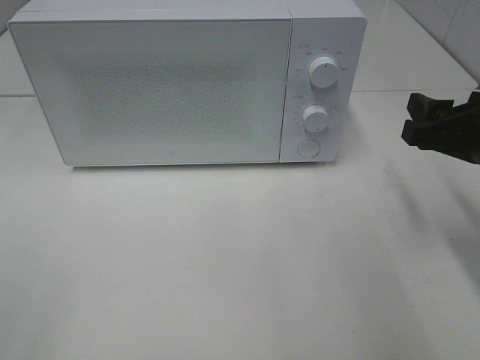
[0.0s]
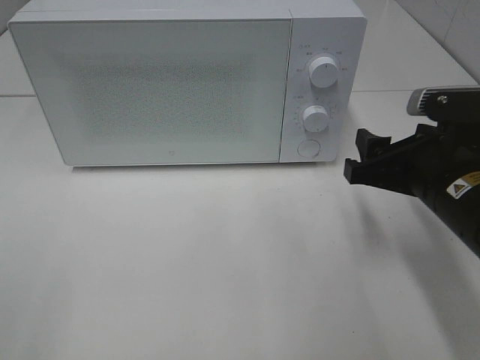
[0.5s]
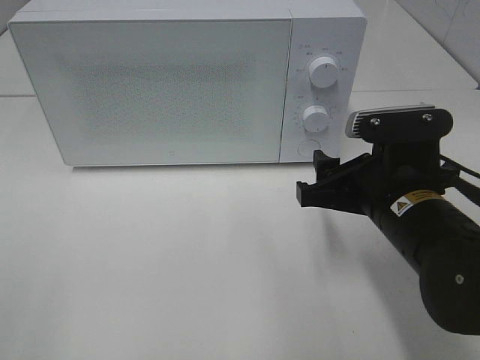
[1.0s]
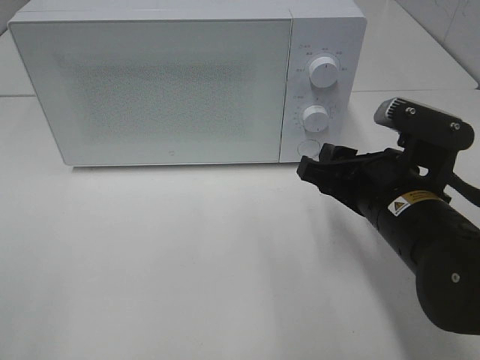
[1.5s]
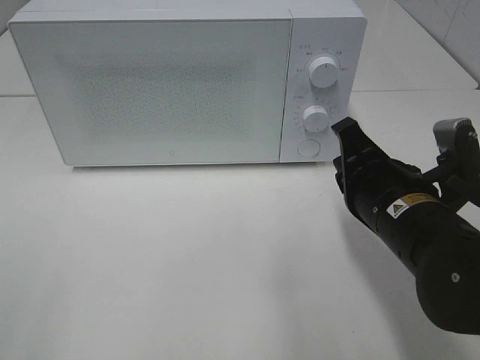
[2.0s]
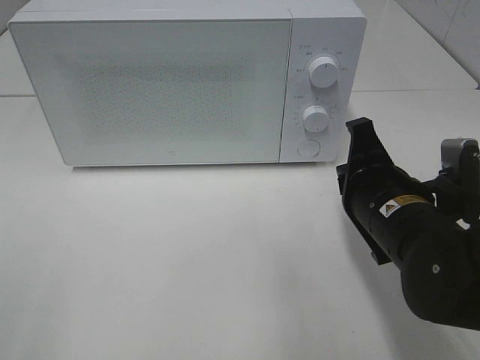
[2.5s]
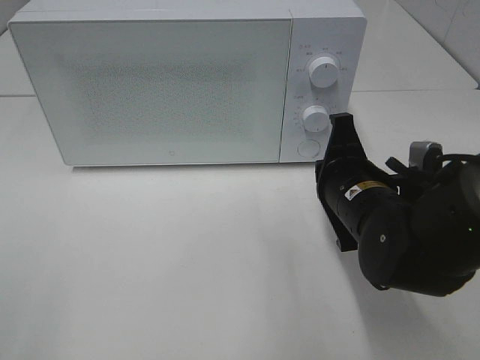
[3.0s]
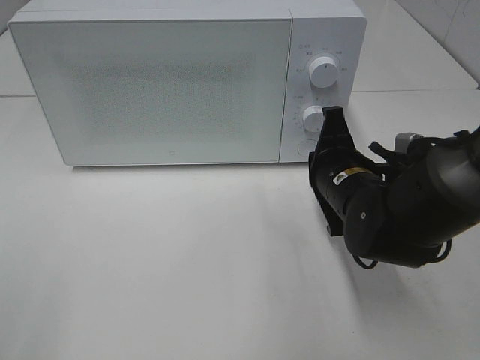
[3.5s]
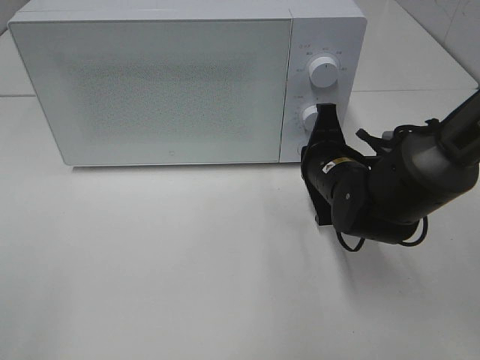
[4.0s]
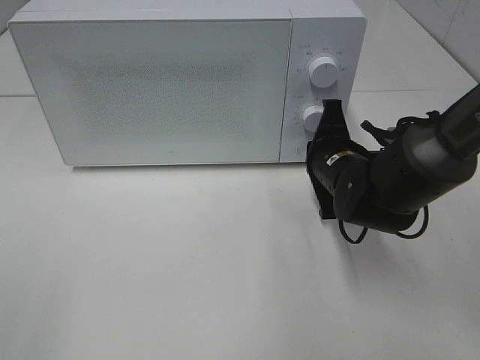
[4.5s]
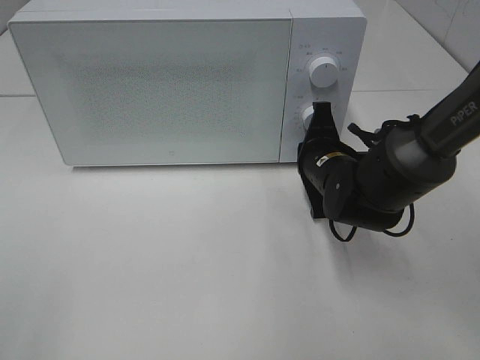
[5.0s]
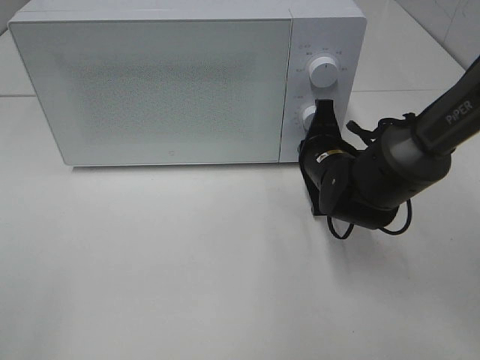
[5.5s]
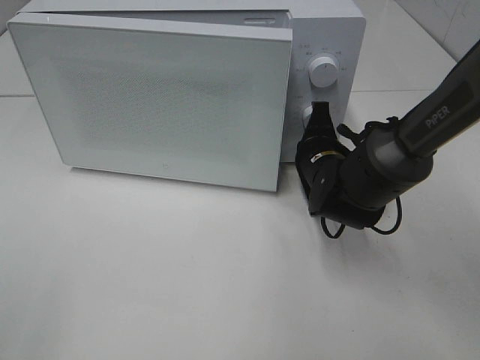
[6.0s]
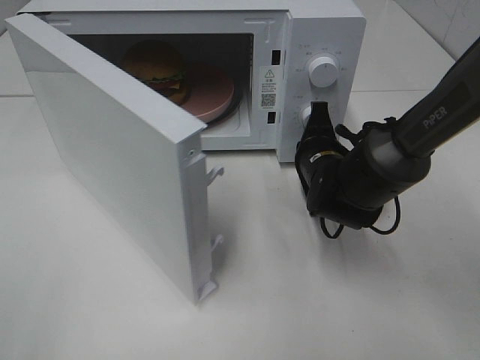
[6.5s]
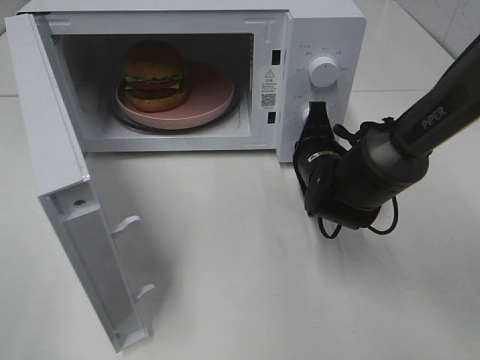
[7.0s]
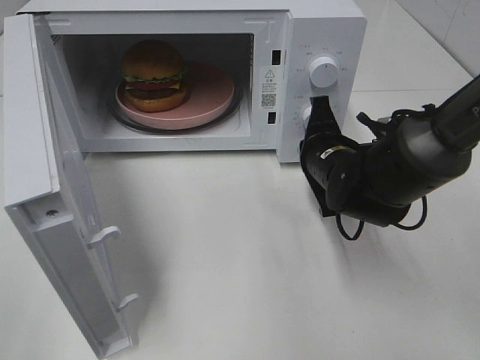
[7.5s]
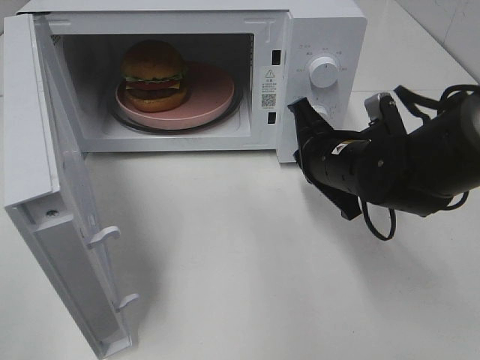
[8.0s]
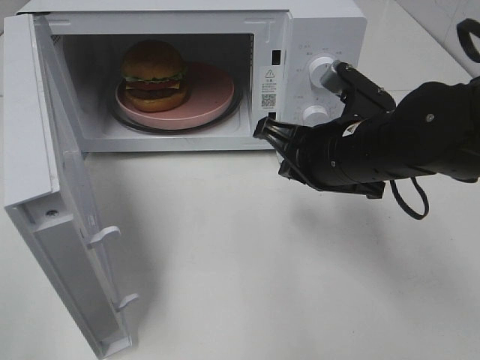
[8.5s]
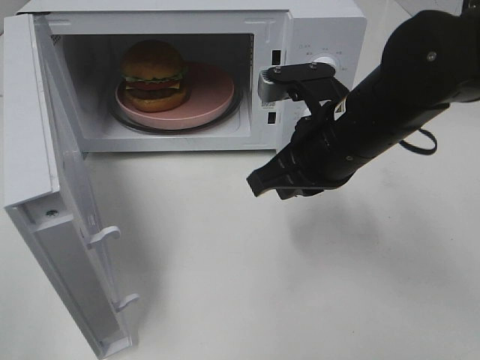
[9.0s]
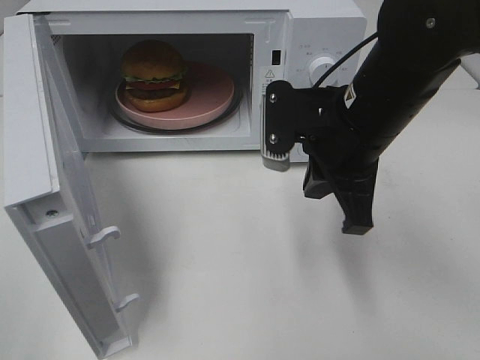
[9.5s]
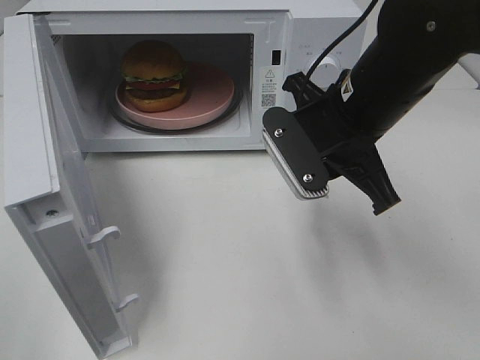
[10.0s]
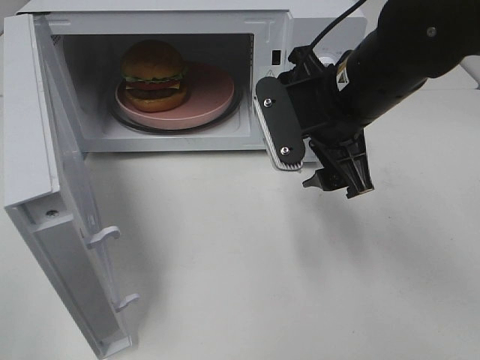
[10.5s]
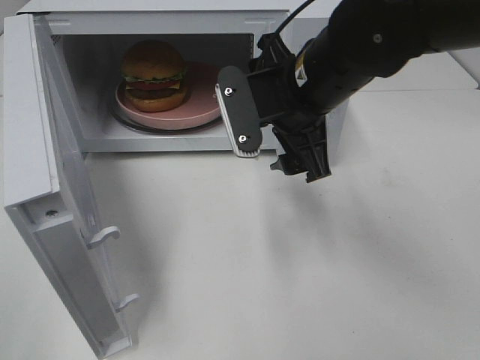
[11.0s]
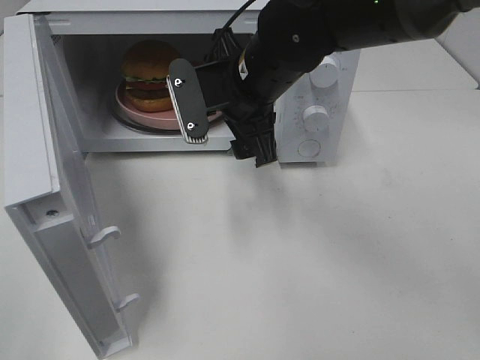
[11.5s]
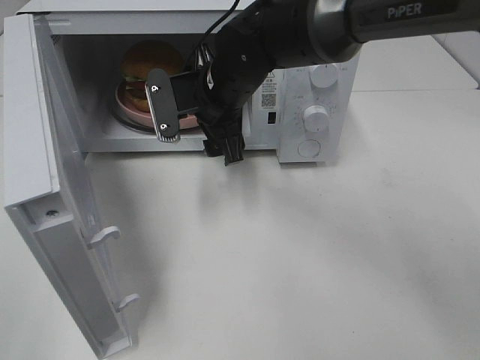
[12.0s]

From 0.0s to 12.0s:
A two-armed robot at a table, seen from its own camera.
Task of the whole recording: Heat the burger.
Step, from 0.0s to 7.5s: Right hand: press the switch.
From 0.0s to 2.0s: The right gripper is displaced to the left by some 10 cm, and closes up.
From 2.0s to 4.0s: The right gripper goes some 10 cm forward and downward.
From 4.0s to 6.0s: There are only small adjustments of the grippers.
From 6.0s to 8.0s: The right gripper shifts about 5 cm upward and backward.
From 8.0s to 10.0s: The right gripper is displaced upward by some 10 cm.
From 10.0s to 12.0s: The right gripper moves to the left and forward, some 15 cm, and opens.

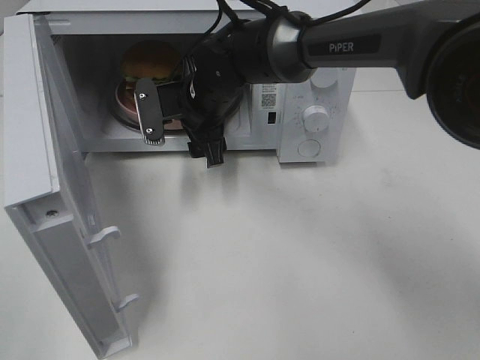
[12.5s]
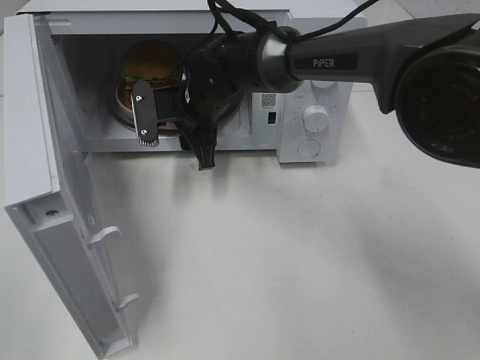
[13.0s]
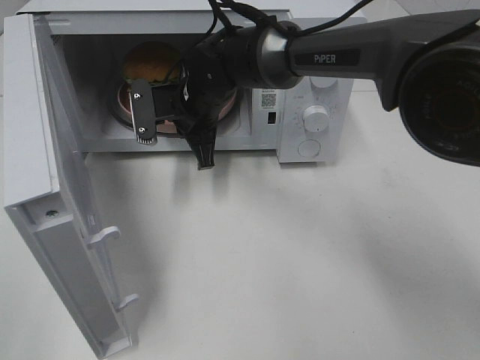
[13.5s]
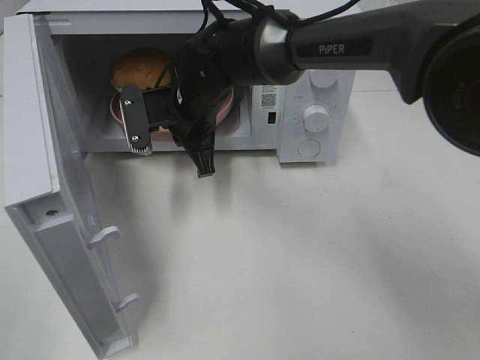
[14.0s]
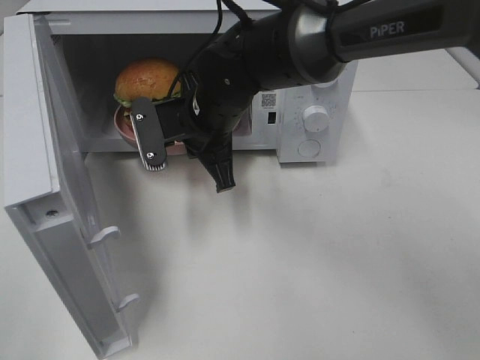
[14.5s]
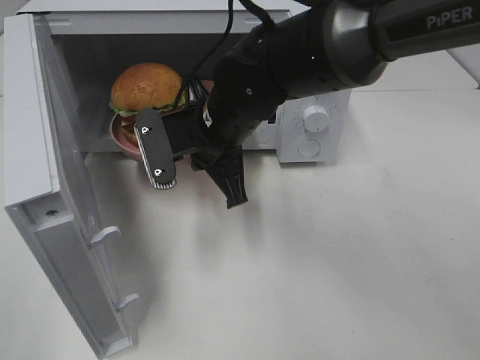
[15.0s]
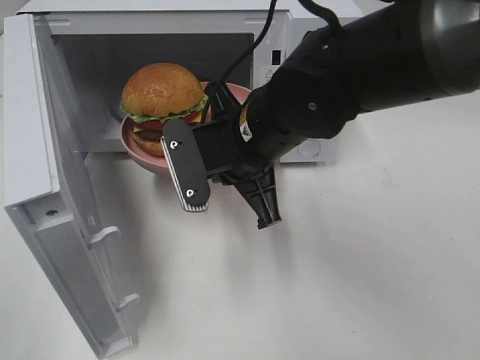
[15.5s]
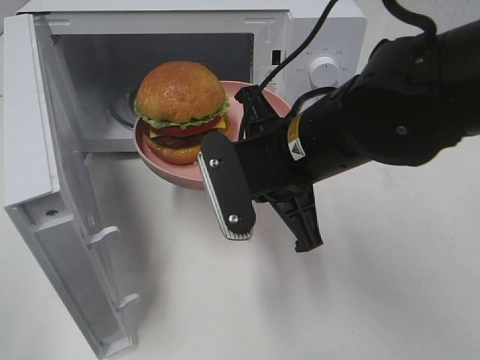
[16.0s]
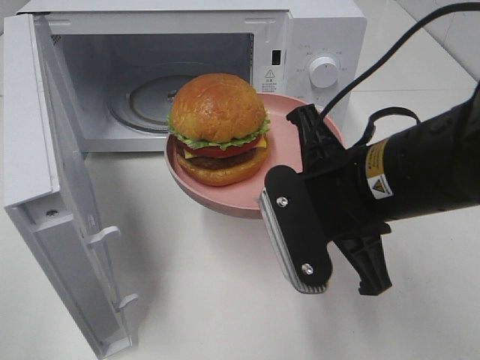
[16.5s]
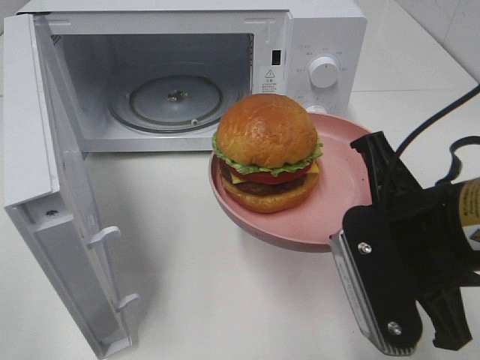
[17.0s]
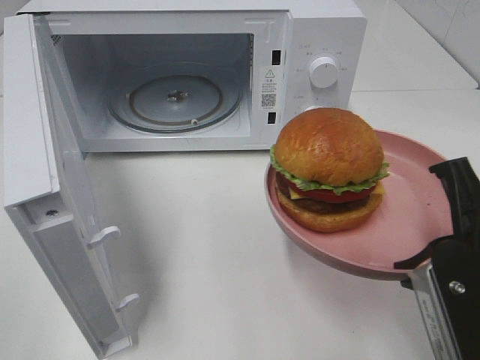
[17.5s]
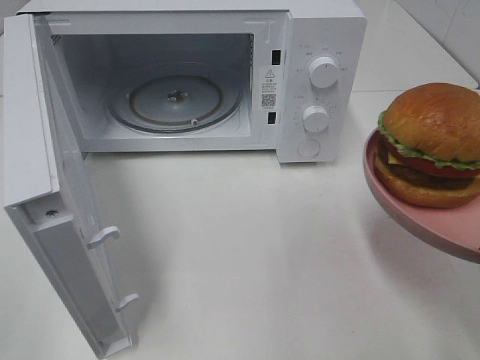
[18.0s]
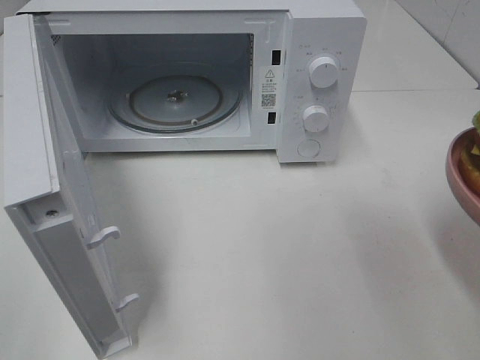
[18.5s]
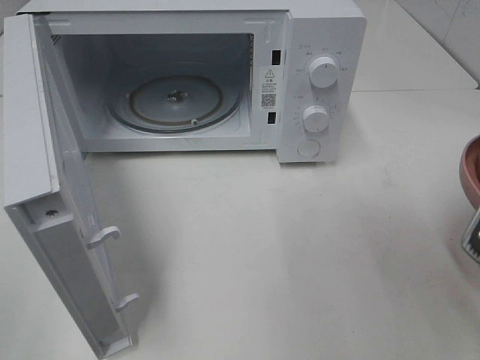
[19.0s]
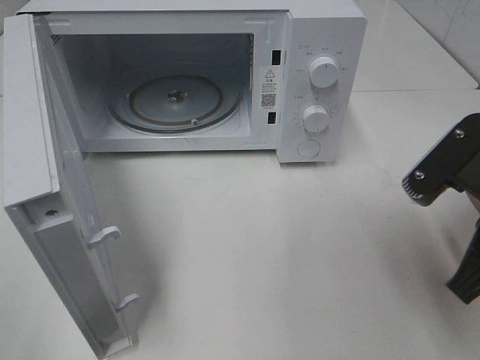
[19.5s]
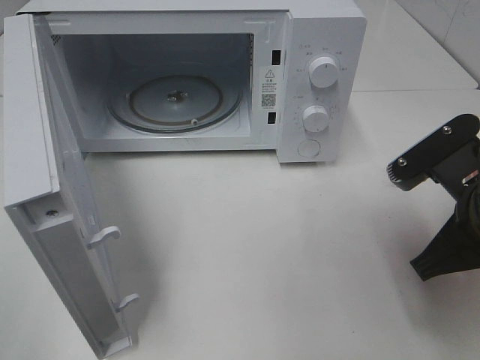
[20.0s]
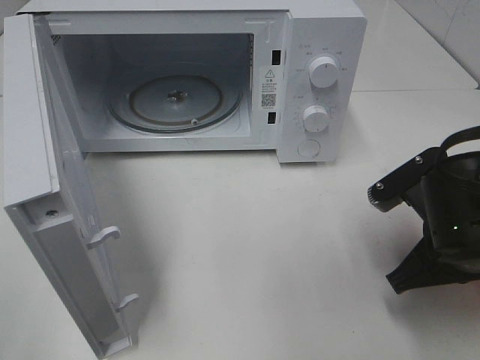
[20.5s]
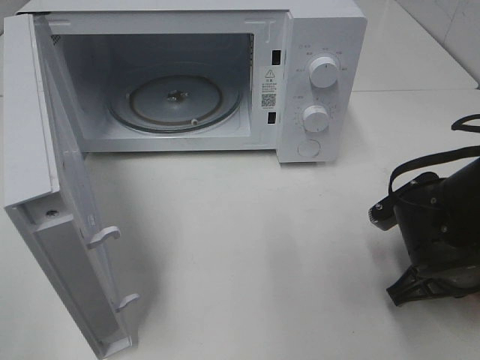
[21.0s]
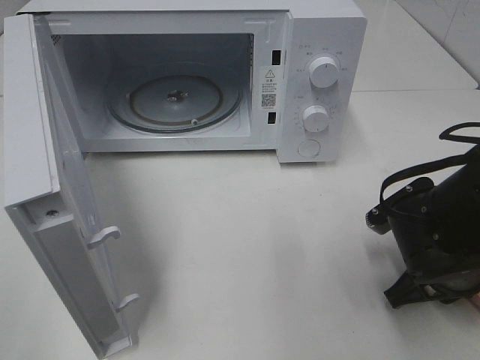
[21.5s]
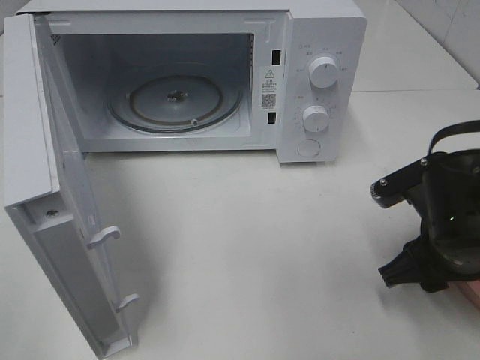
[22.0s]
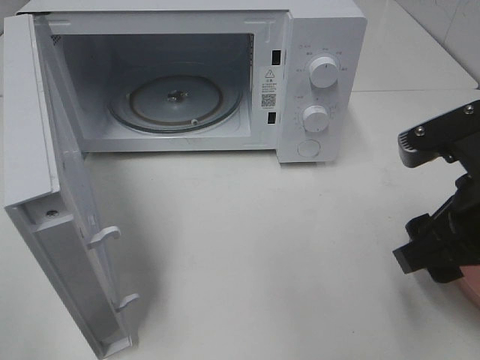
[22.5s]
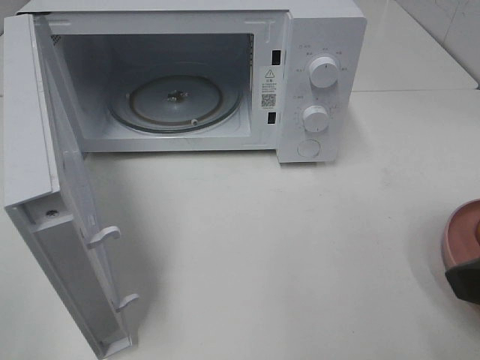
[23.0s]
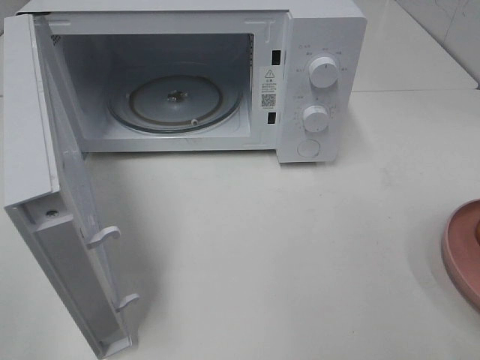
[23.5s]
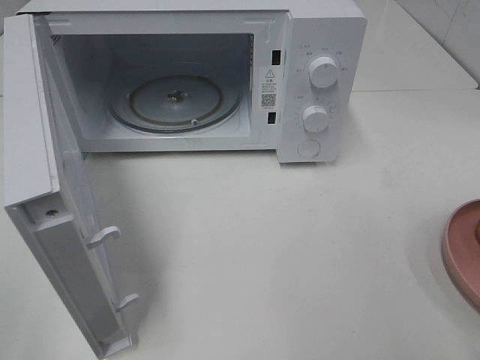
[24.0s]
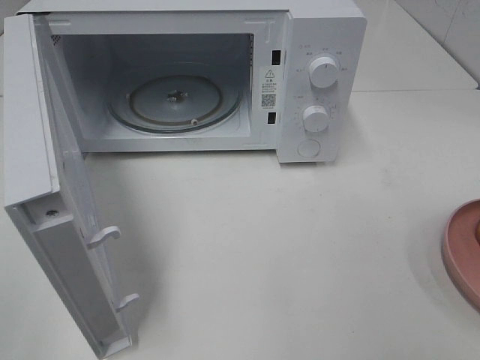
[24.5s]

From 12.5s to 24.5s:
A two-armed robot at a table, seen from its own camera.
Task of the whole recording: Heat the burger.
Step, from 13.5s to 21.5s: Right hand: place the plate on the table.
From 12.5s to 14.5s: The right gripper moves backward, about 5 cm, and closes its fingers.
From 14.5s to 16.5s: The right gripper heads backward and to the right, covering some 20 cm.
From 16.5s to 18.5s: The right gripper goes about 15 cm to the right and backward.
From 18.5s to 20.5s: The right gripper shifts approximately 15 cm forward, downward and to the left.
From 20.5s to 22.5s: The right gripper heads upward, covering roughly 10 cm, and opens up.
From 22.5s to 24.5s: The right gripper is displaced backward, to the right and upward by approximately 20 cm.

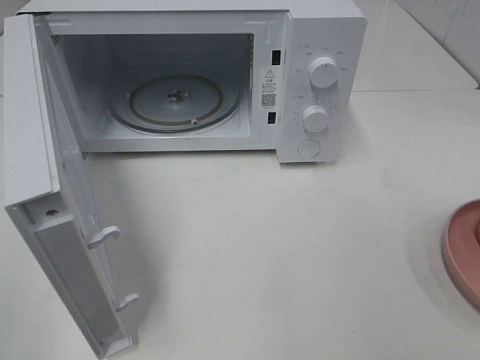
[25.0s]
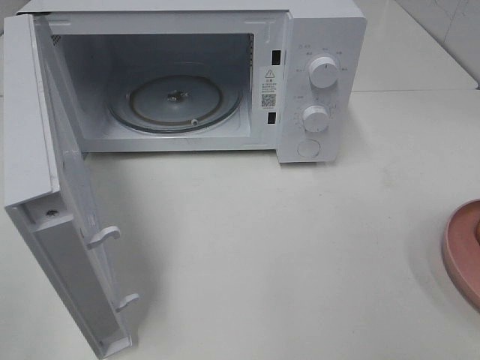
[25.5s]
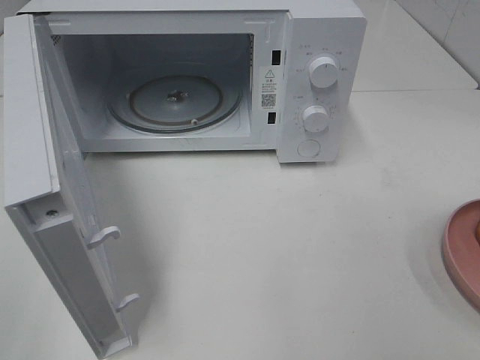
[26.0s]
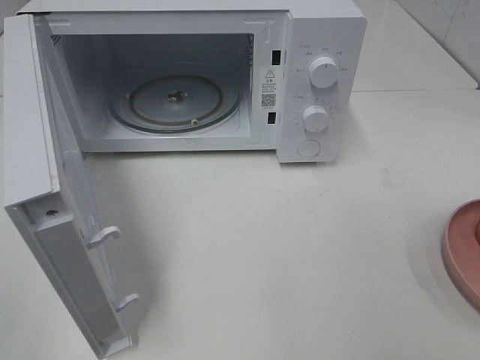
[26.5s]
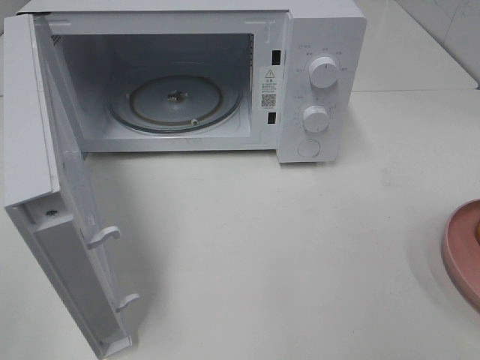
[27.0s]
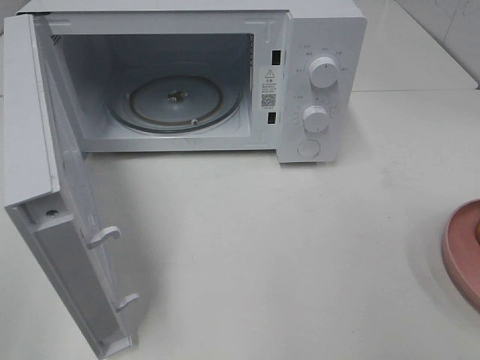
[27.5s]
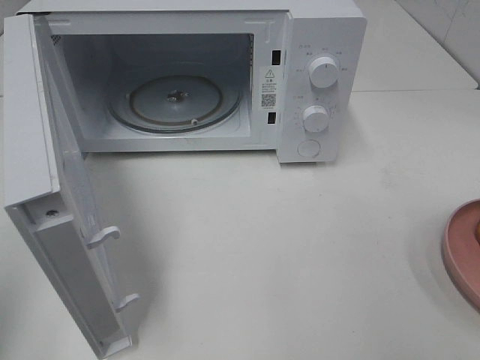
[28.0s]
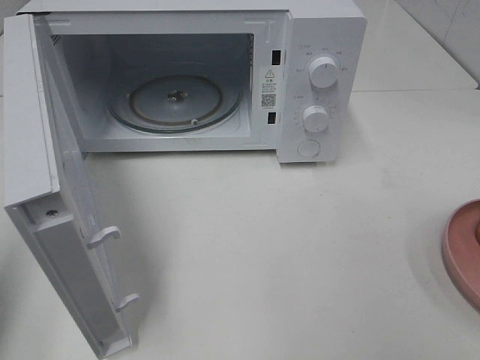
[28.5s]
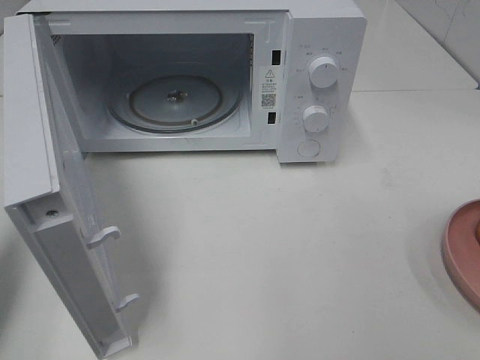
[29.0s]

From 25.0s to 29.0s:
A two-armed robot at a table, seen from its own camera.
Task of the whole recording: Heat the burger.
From 25.0s to 27.0s: The two grippers keep their place.
From 27.0s to 29.0s: The left gripper goes about 20 cm forward, and closes up.
